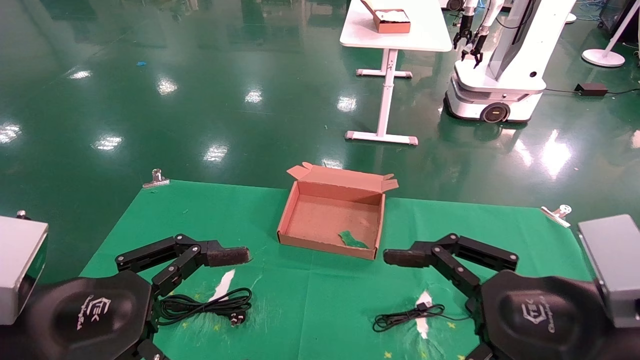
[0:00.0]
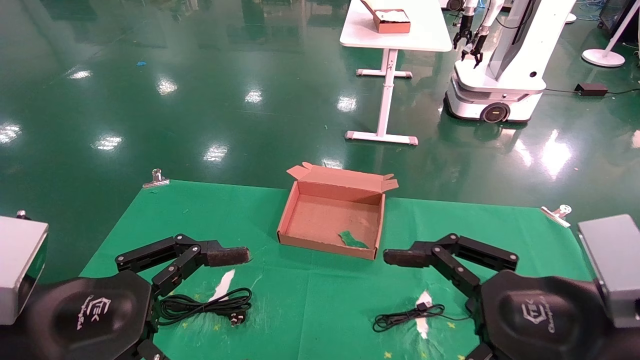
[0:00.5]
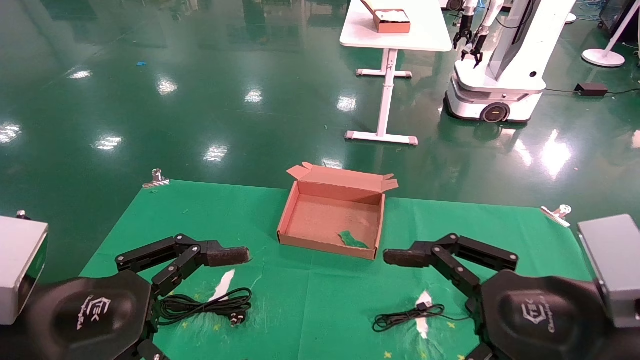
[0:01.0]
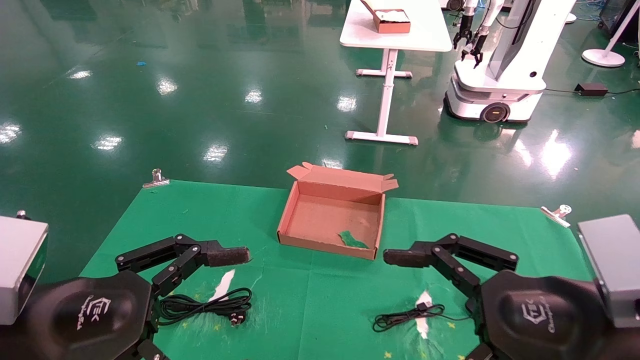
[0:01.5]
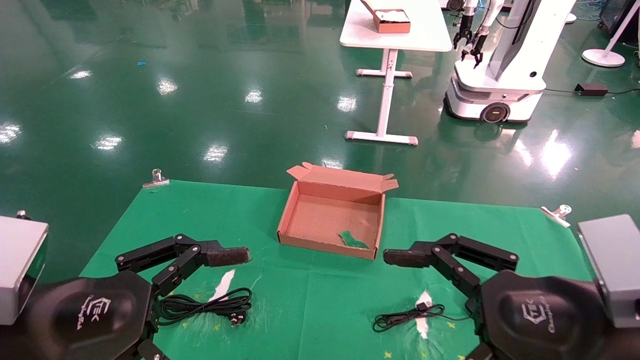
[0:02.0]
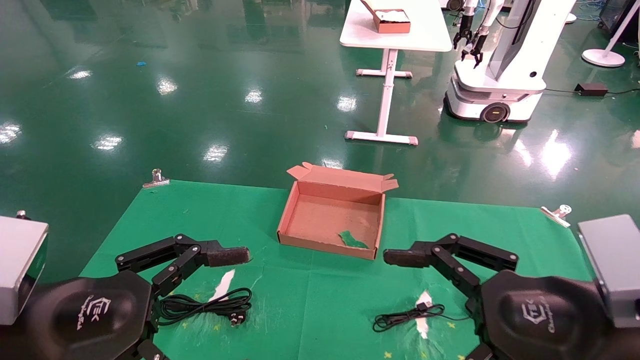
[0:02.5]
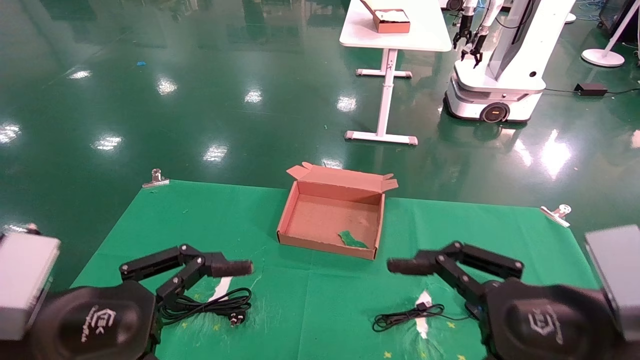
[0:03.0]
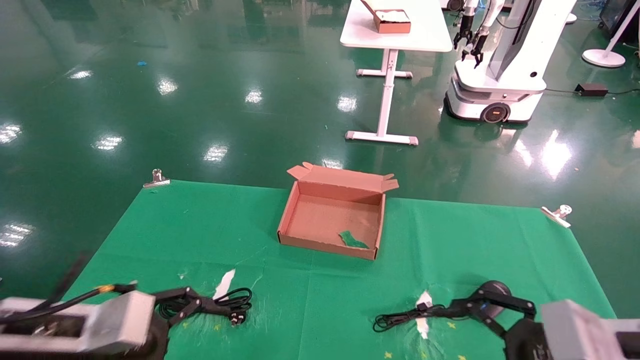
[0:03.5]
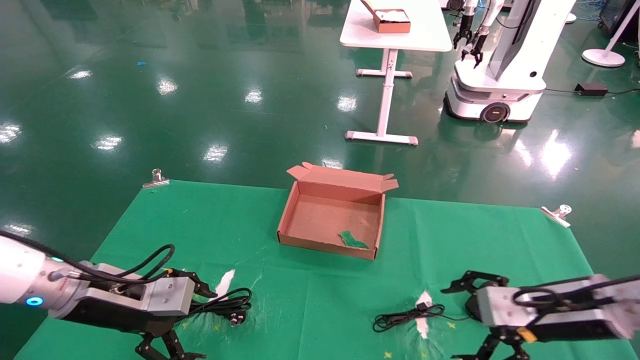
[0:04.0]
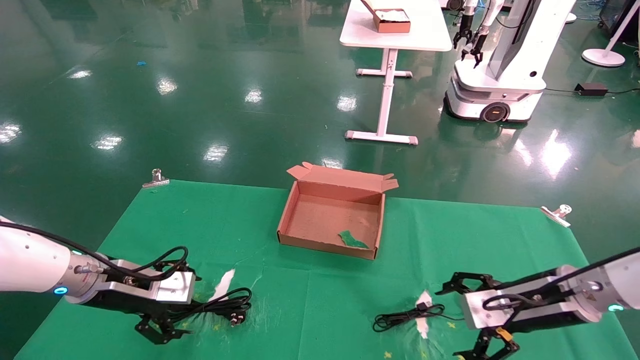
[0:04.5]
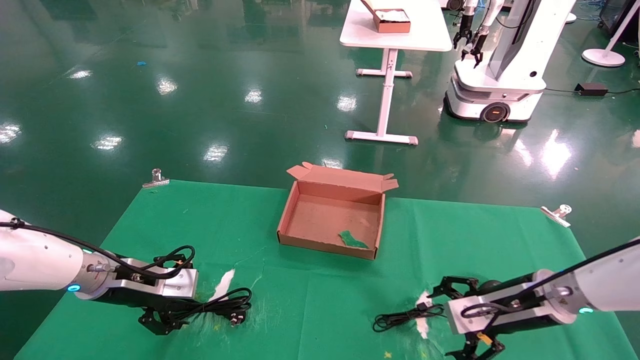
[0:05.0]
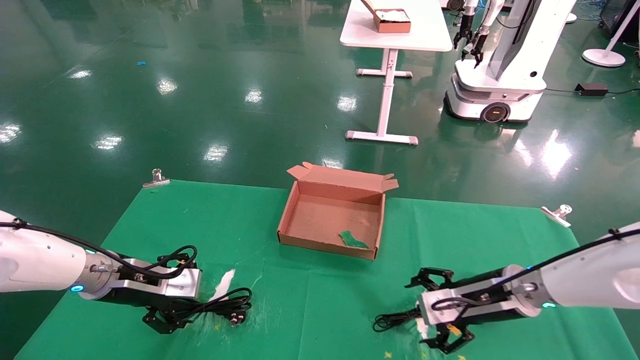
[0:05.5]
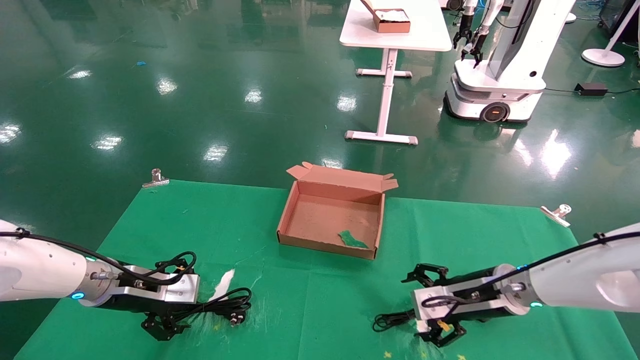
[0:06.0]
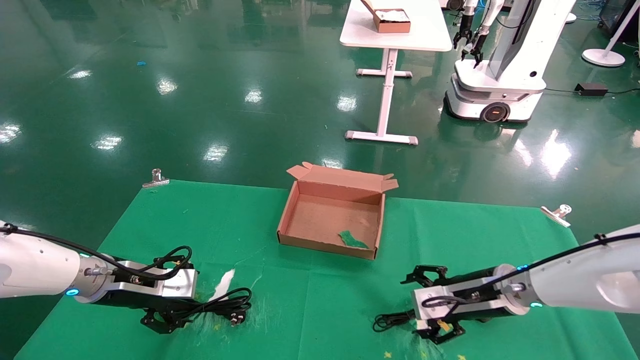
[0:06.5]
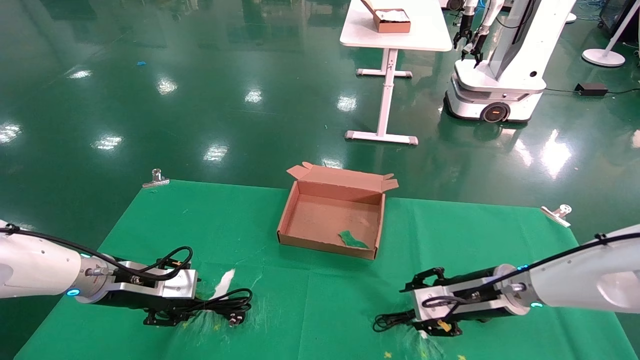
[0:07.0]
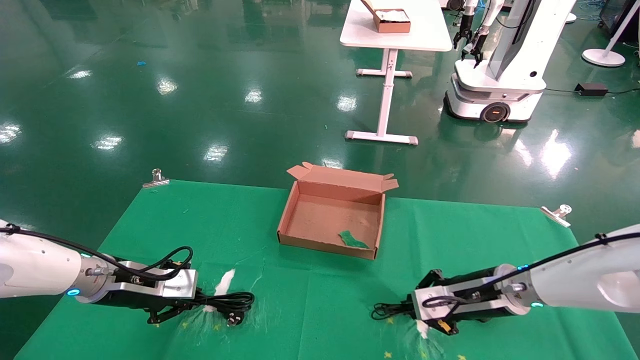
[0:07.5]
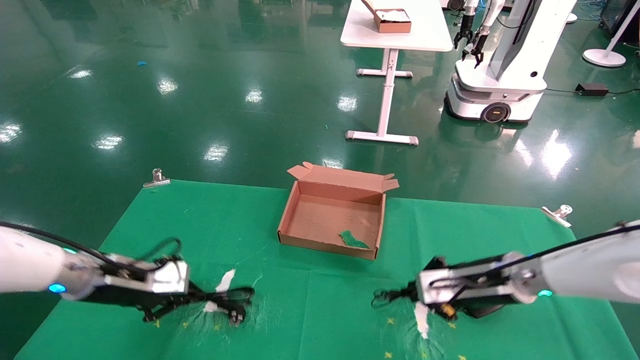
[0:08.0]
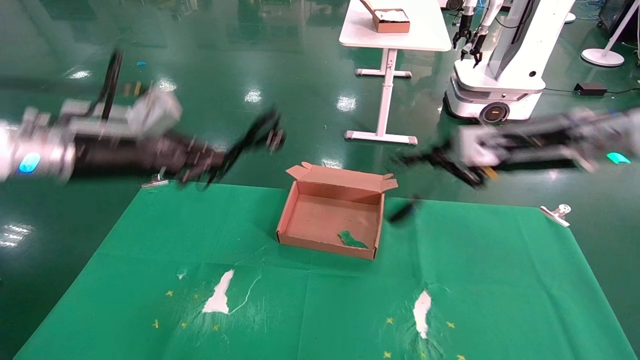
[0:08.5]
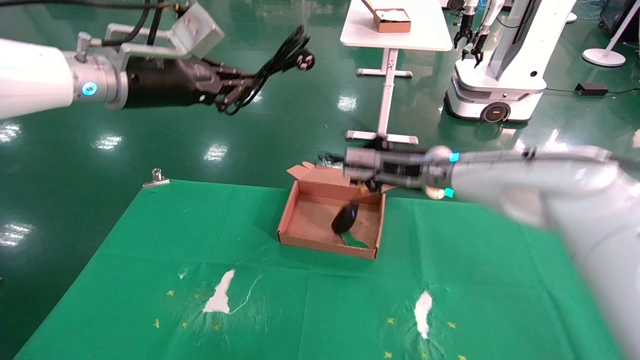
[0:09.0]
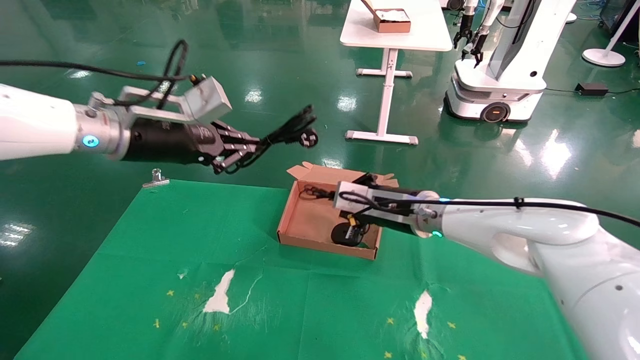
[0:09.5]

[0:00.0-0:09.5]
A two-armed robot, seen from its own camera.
Step, 0:03.0 to 0:07.5: Grab and lift both the mouse and power cord from the accessory packaging area at the same time.
0:00.0 to 0:02.0: Neither gripper changes place.
0:02.0 to 0:04.0: The left gripper is displaced forward by roughly 20 cm. Meanwhile the right gripper is displaced forward, downward and to the right by some 20 cm.
0:04.0 to 0:05.5: The left gripper moves forward, about 5 cm. Meanwhile the right gripper moves forward and to the left, some 10 cm.
0:05.5 to 0:07.5: The left gripper closes up; the right gripper closes its fingers.
0:07.5 to 0:09.5: The left gripper goes approximately 25 cm upward and to the right. Meanwhile the right gripper shifts some 15 cm to the left, upward and forward.

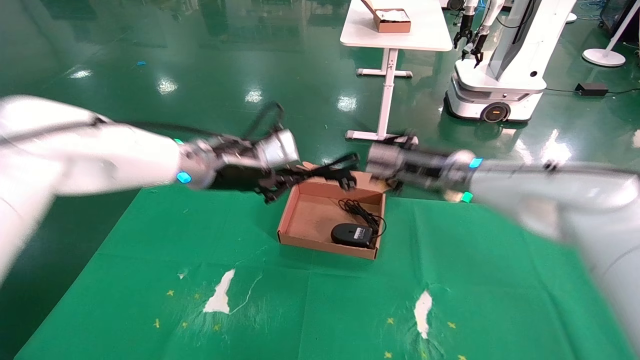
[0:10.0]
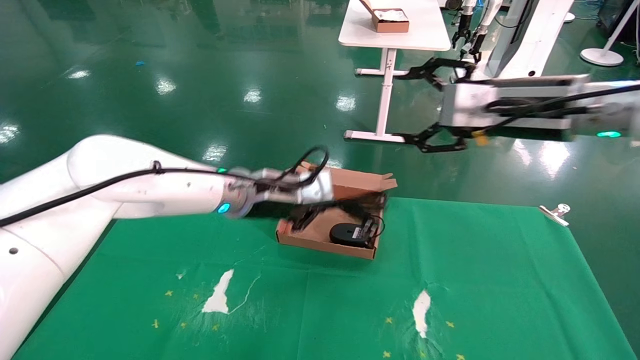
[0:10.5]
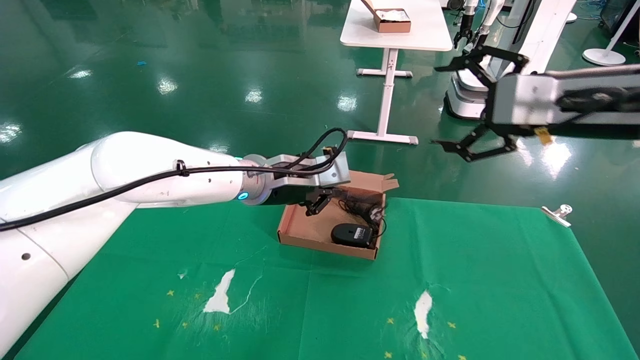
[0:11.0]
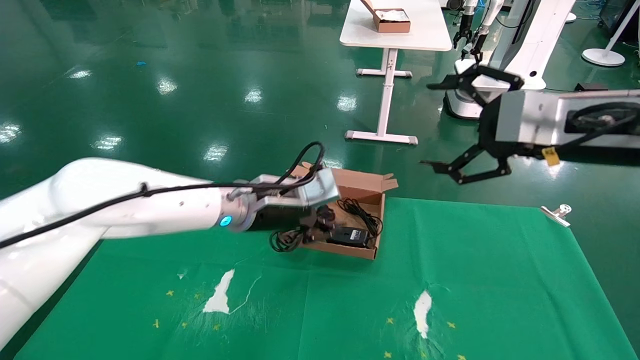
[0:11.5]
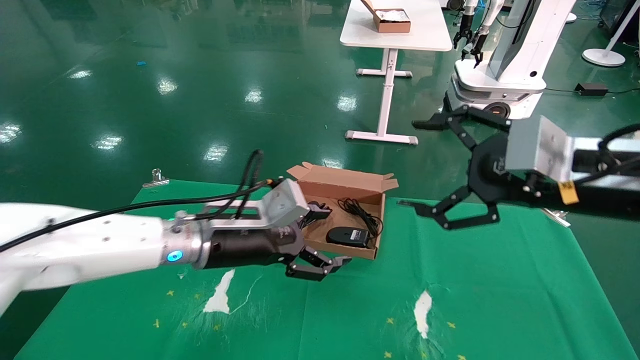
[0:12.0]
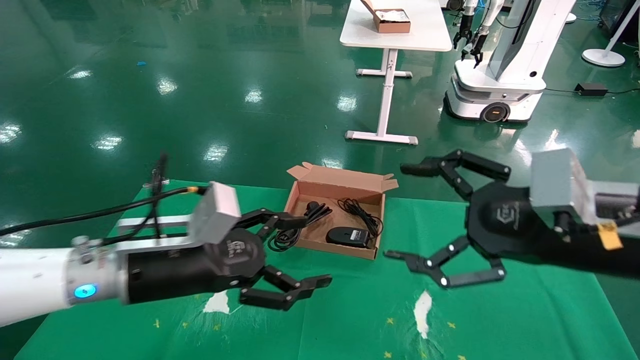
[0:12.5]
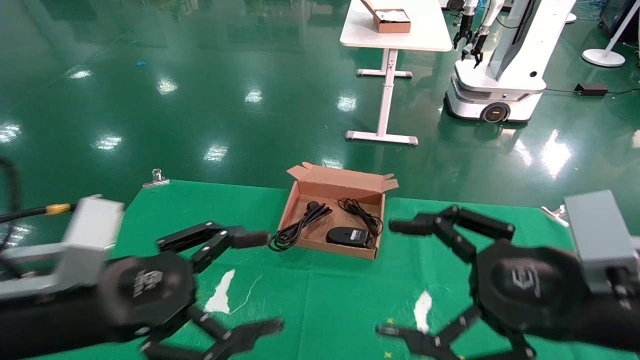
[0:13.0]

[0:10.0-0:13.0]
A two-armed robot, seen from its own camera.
0:10.0 to 0:11.5: The right gripper moves backward, to the right and upward, about 20 cm, and opens up; the left gripper goes roughly 10 cm to the right and downward.
0:11.5 to 0:13.0: The left gripper is displaced backward and to the left by approximately 25 cm, and opens. The right gripper goes approximately 15 cm downward and backward.

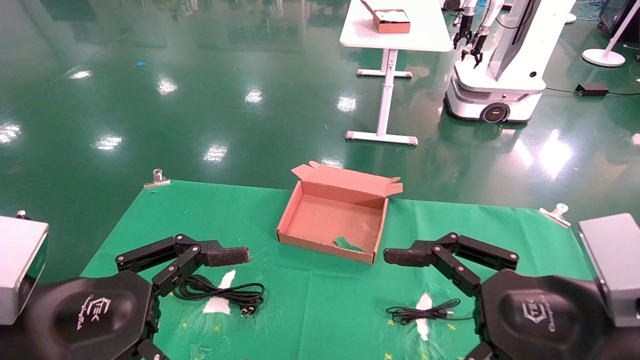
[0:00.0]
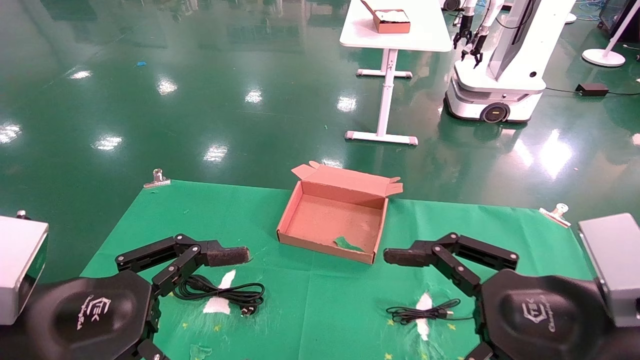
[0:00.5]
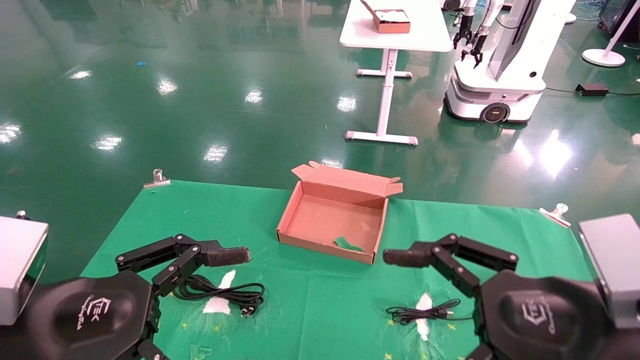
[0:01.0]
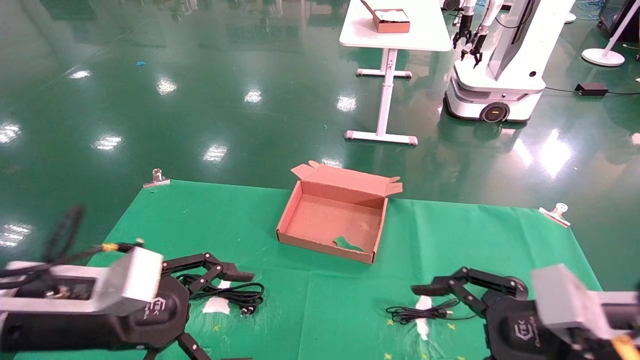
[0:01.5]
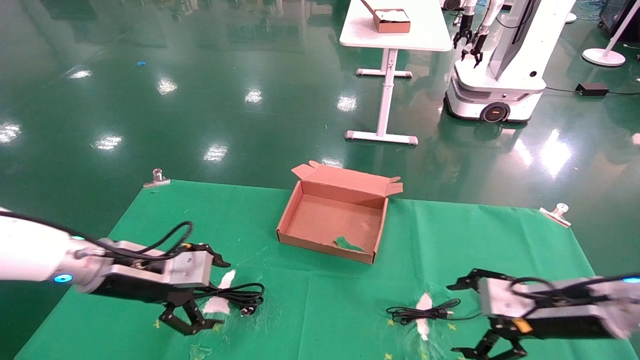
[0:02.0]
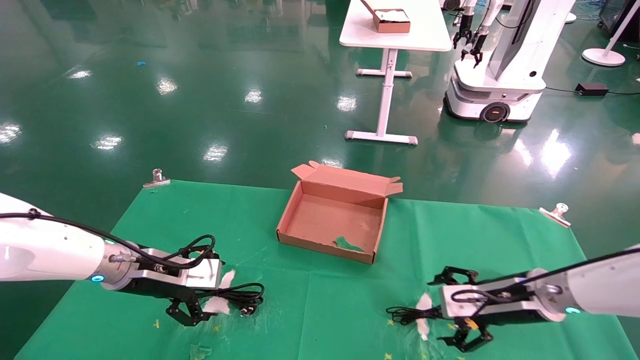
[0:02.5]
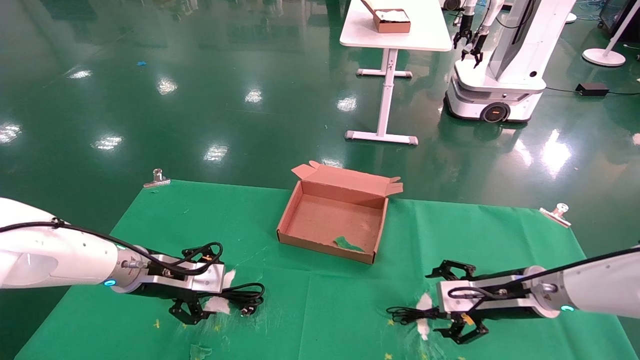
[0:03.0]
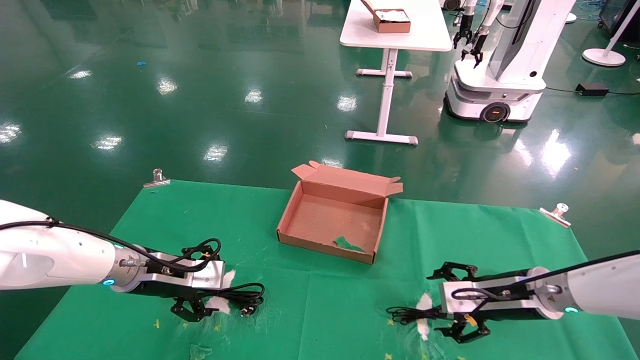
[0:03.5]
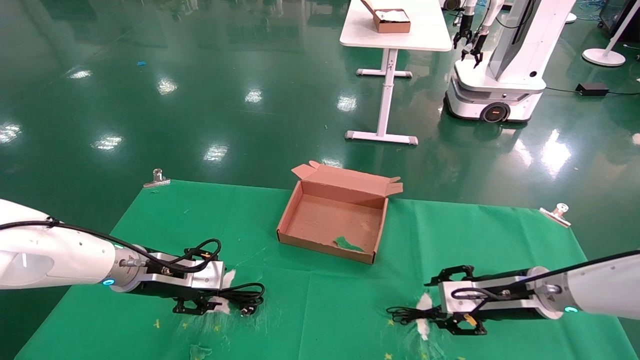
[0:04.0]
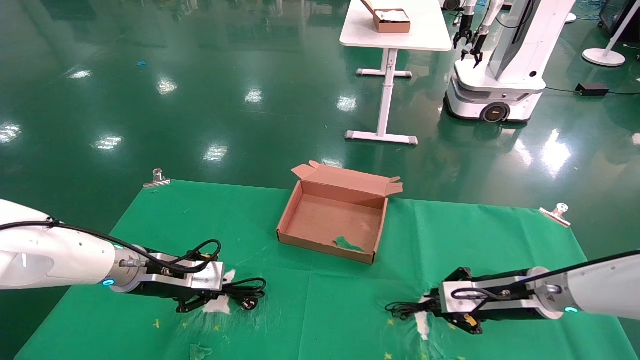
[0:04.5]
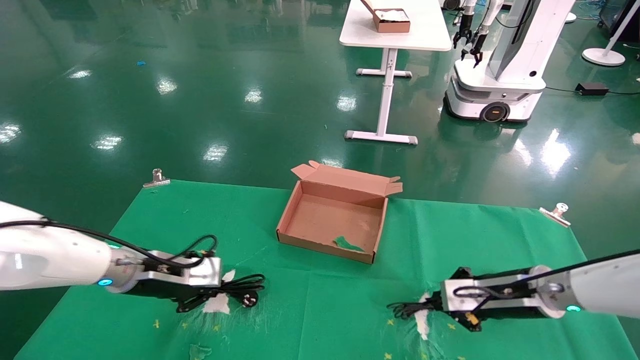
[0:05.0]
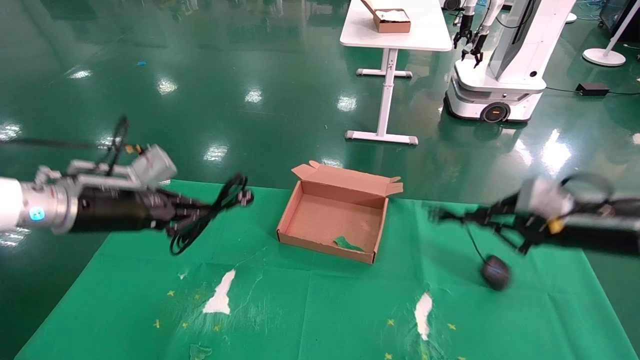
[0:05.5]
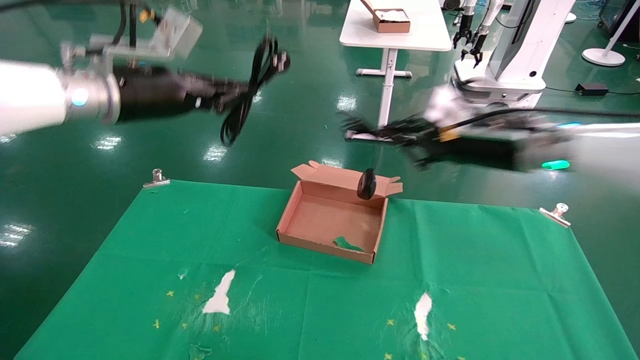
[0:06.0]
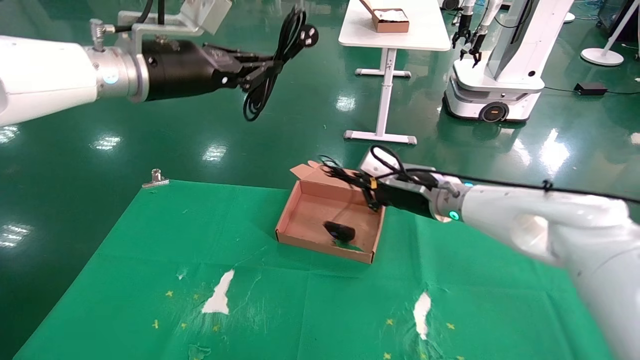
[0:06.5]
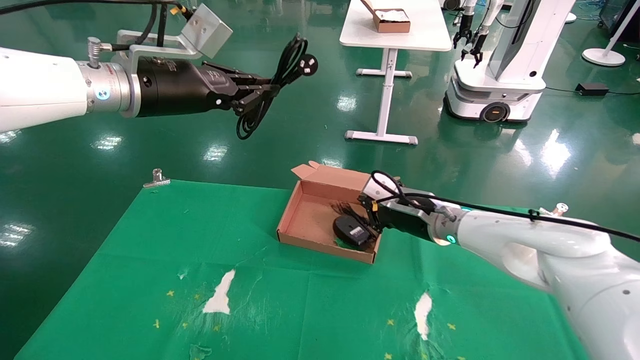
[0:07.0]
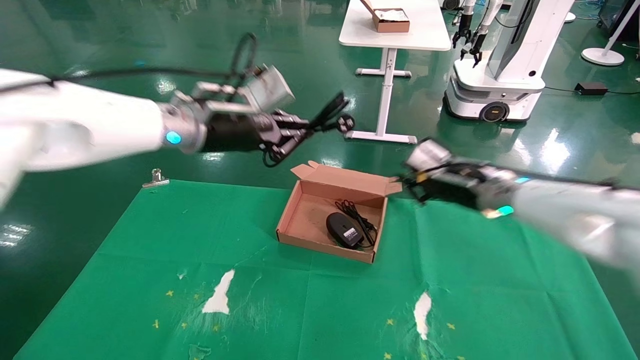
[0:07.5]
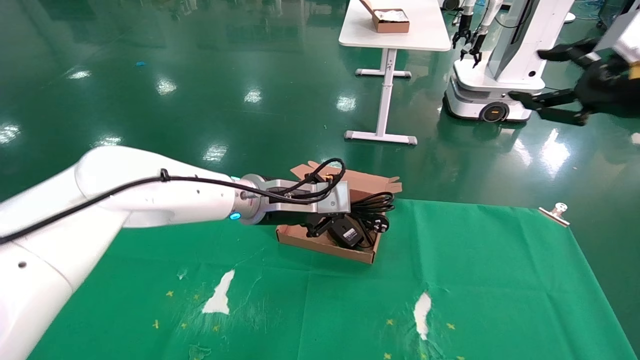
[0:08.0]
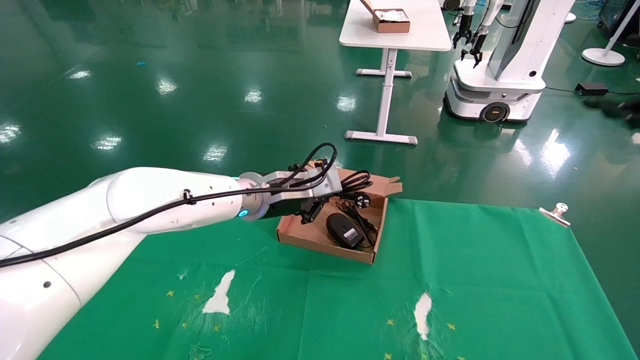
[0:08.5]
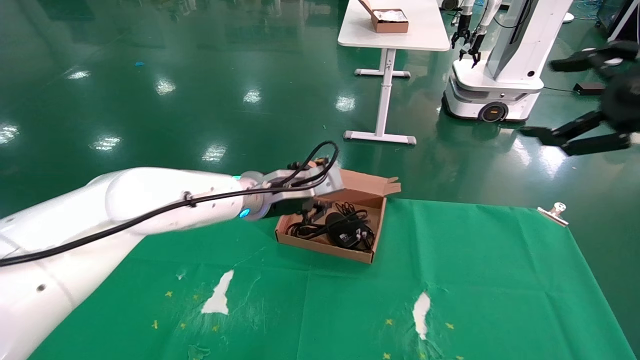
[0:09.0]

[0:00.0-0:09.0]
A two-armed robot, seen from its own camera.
Step, 0:01.5 to 0:05.5: Grab and lift both the mouse and power cord from the accessory packaging area at the same time.
0:00.0 to 0:02.0: The left gripper is displaced forward by some 20 cm; the right gripper travels forward, downward and to the right by roughly 20 cm.
0:02.0 to 0:04.5: The two grippers go about 5 cm forward. The right gripper closes its fingers; the left gripper closes its fingers.
0:04.5 to 0:07.0: The left gripper heads upward, covering roughly 25 cm. The right gripper moves to the left, upward and forward, some 15 cm.
0:07.0 to 0:09.0: The right gripper heads to the right, backward and upward, covering roughly 35 cm, and opens. The left gripper is displaced downward and to the right by about 20 cm.
